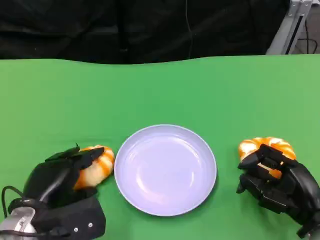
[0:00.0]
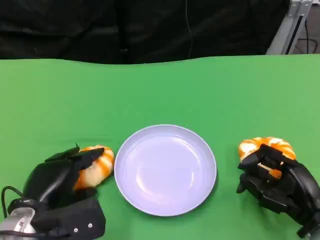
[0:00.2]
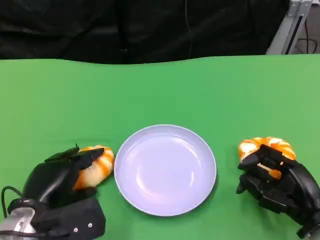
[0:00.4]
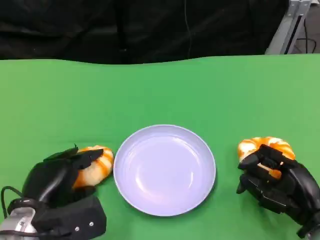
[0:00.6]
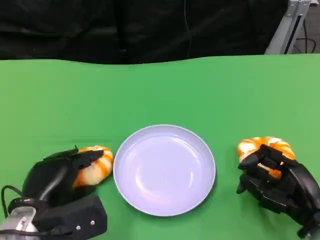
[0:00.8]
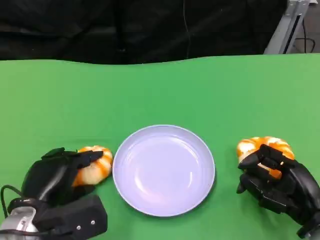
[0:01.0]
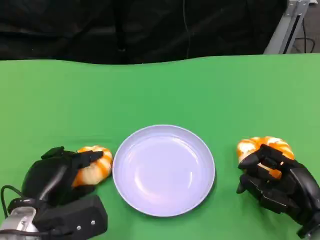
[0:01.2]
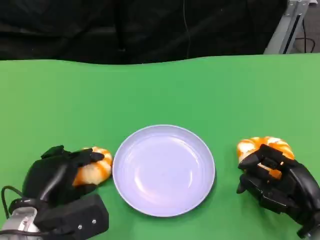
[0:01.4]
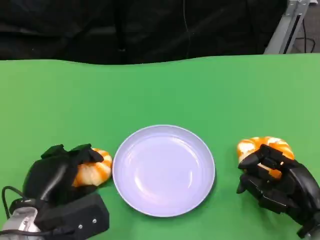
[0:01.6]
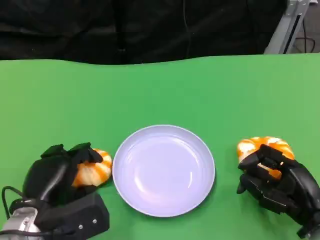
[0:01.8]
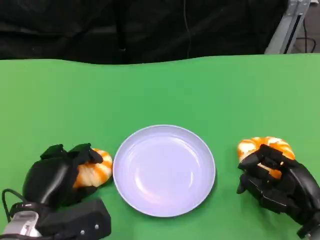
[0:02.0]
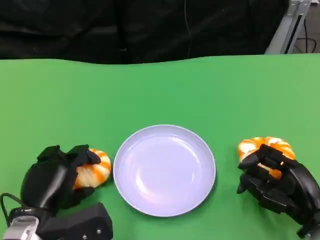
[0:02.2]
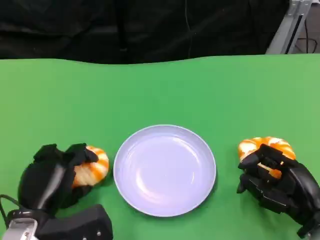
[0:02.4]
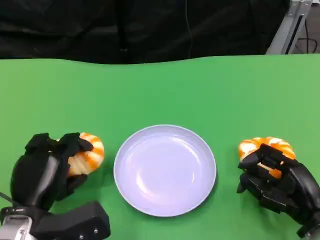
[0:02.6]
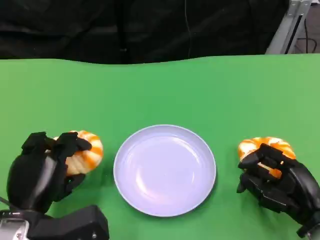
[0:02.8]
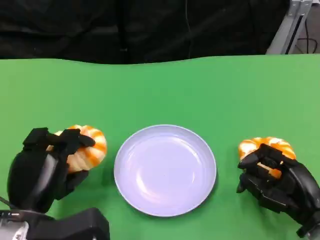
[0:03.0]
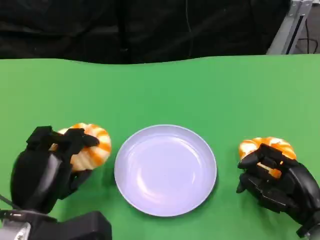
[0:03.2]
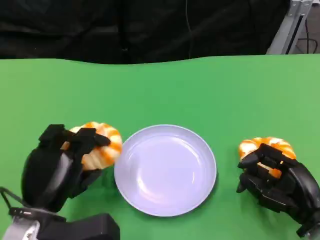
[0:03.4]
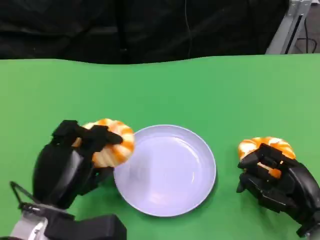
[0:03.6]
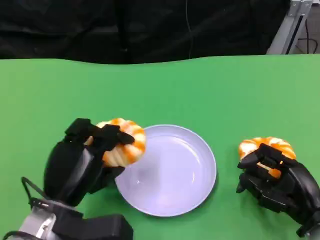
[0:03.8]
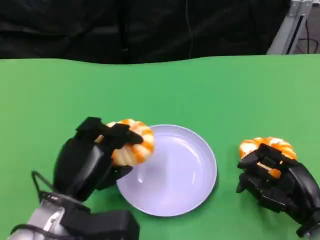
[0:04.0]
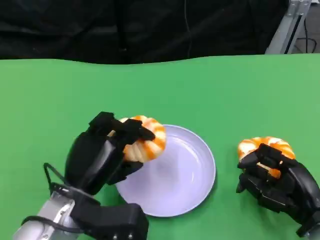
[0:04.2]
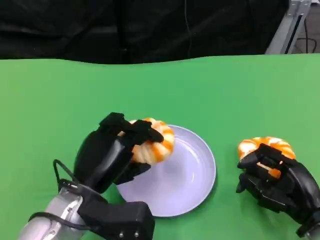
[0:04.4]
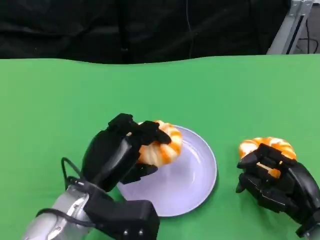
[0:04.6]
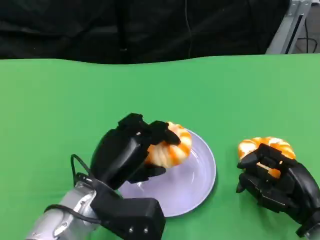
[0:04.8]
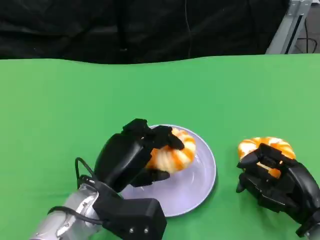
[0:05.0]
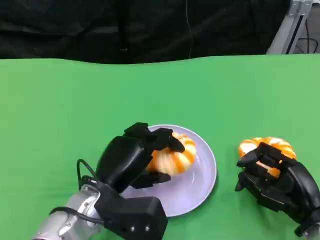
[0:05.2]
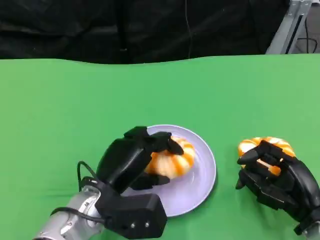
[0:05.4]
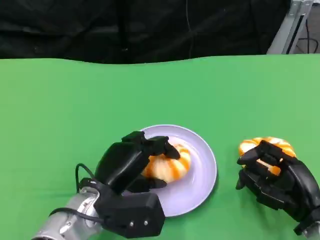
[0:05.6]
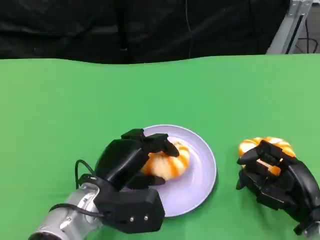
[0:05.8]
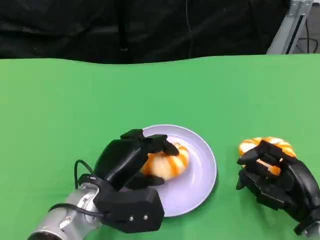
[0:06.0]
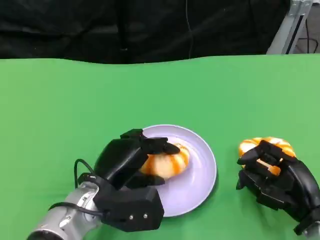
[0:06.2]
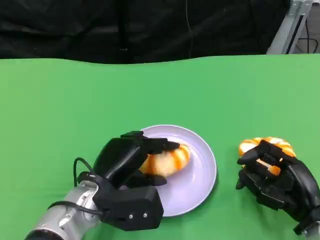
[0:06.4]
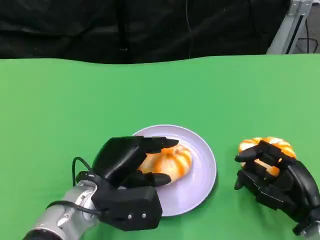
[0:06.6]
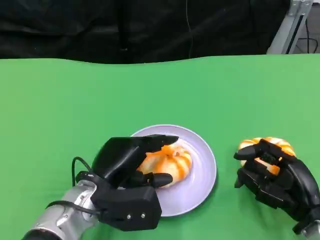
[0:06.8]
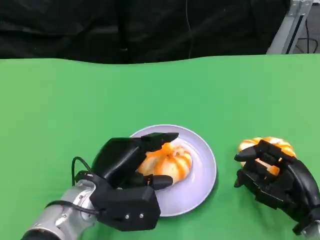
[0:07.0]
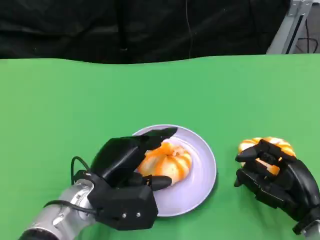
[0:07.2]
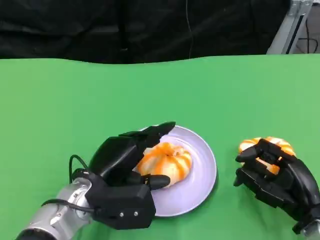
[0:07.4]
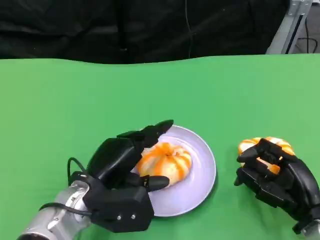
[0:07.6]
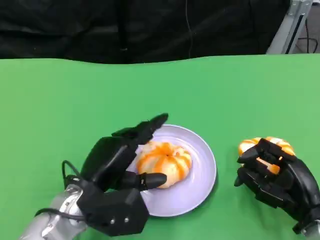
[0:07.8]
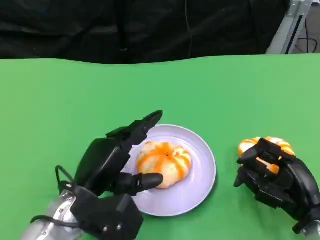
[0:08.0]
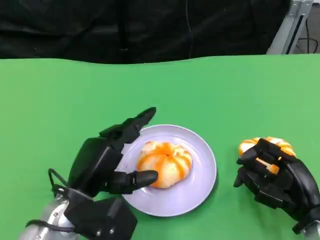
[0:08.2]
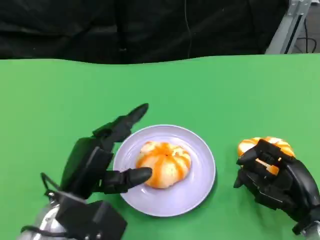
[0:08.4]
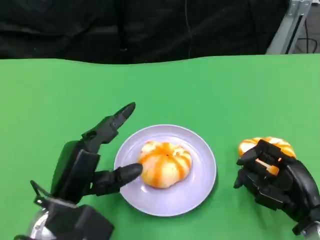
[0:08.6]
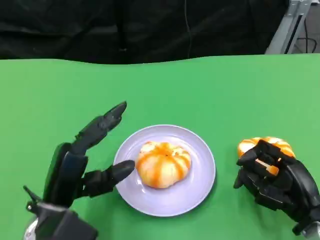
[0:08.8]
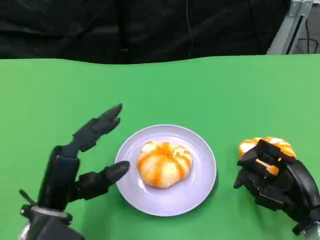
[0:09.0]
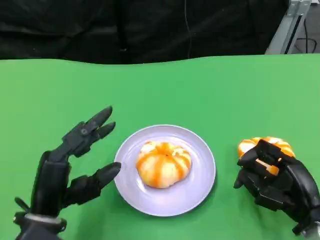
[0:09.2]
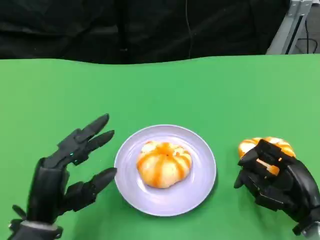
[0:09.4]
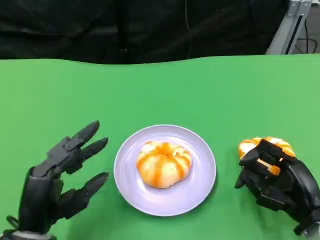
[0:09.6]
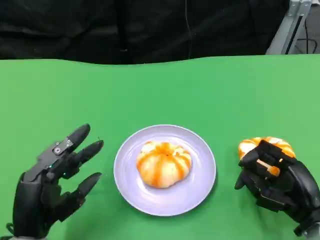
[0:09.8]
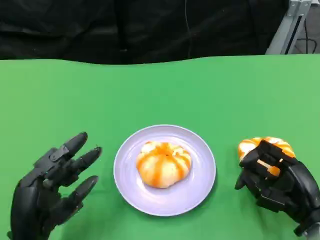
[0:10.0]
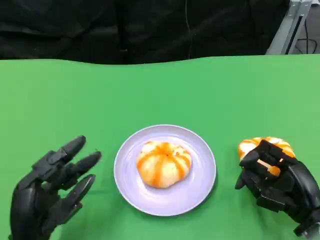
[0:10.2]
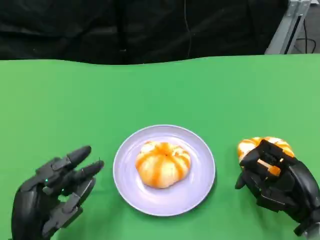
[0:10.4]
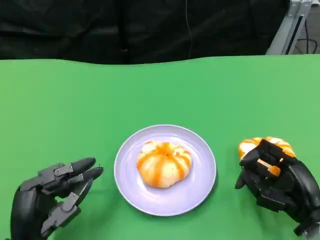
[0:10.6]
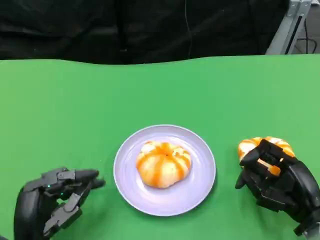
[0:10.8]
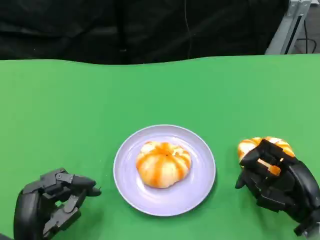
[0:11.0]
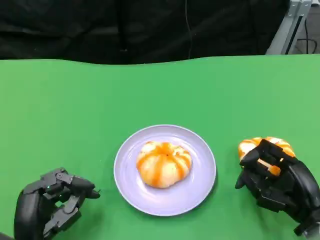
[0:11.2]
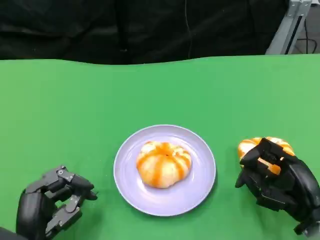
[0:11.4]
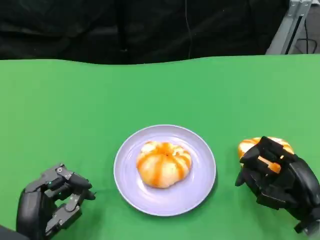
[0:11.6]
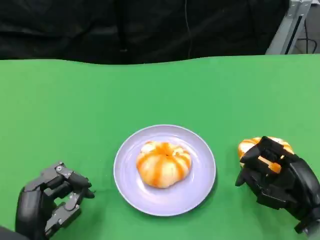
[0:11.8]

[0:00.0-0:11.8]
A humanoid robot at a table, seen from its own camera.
Task of the whole recording: Grasp the bread from the table and place it into the plate.
0:00.0 to 0:01.4: The hands stay close to where they were, moving slightly.
0:03.0 to 0:04.4: The left hand moves to the right, roughly 5 cm.
0:04.4 to 0:06.0: The hands make only small movements.
0:06.0 to 0:07.4: The two hands keep their place.
0:07.4 to 0:08.8: The left hand moves approximately 5 cm.
0:08.8 to 0:10.4: The left hand shifts by roughly 5 cm.
0:10.4 to 0:11.8: There are only small adjustments of the hands.

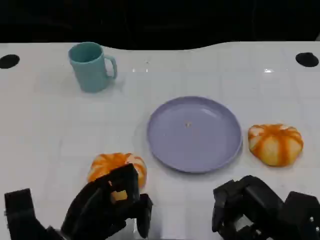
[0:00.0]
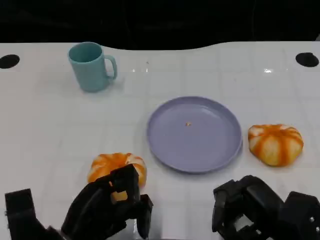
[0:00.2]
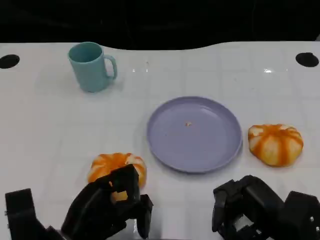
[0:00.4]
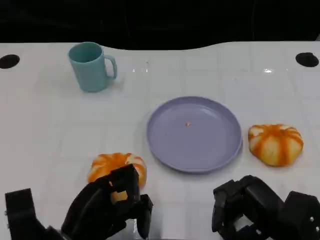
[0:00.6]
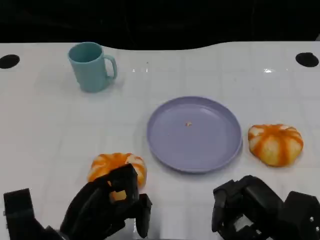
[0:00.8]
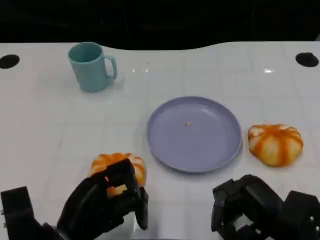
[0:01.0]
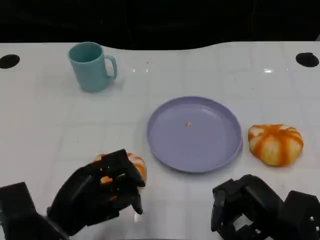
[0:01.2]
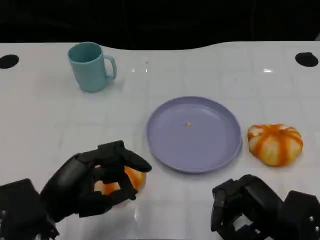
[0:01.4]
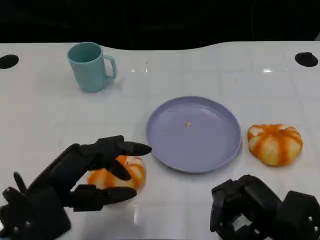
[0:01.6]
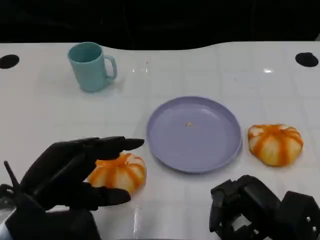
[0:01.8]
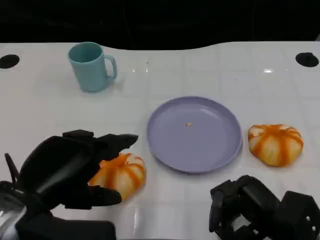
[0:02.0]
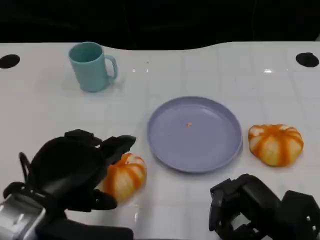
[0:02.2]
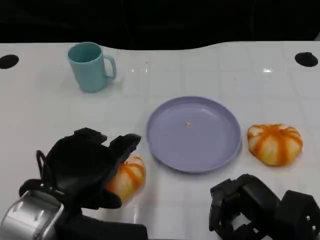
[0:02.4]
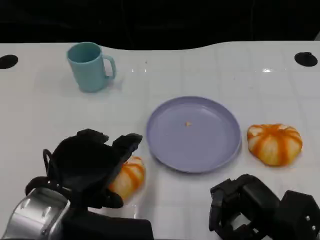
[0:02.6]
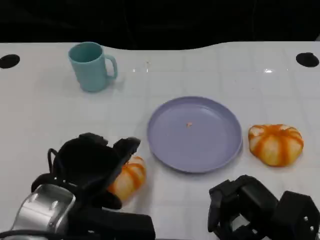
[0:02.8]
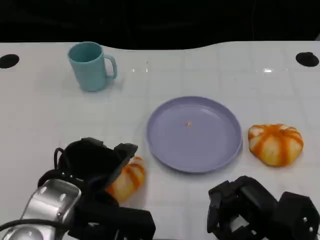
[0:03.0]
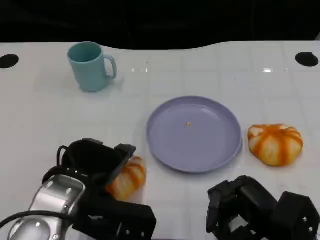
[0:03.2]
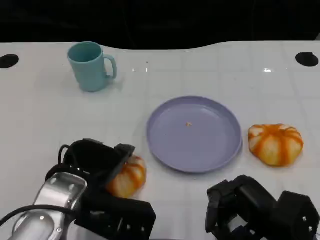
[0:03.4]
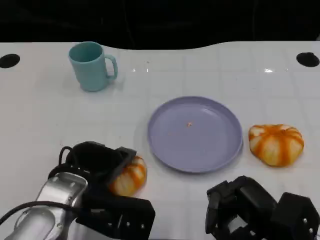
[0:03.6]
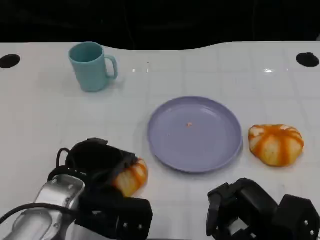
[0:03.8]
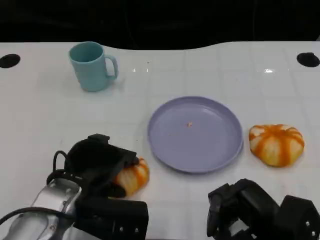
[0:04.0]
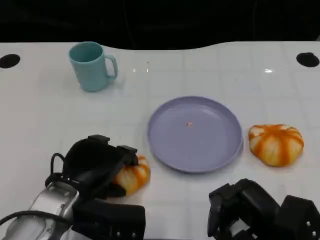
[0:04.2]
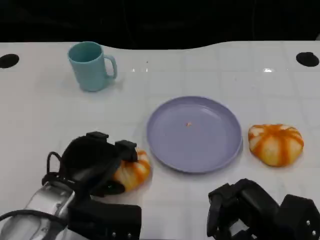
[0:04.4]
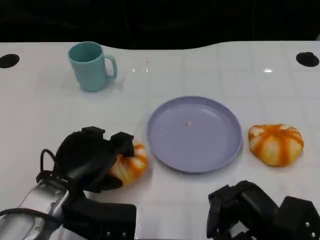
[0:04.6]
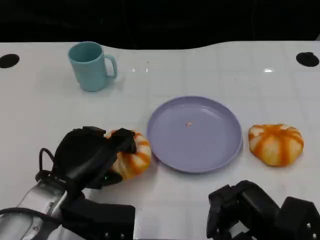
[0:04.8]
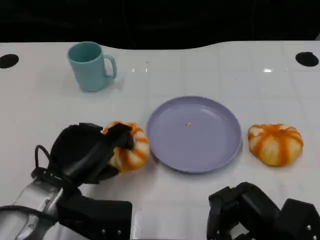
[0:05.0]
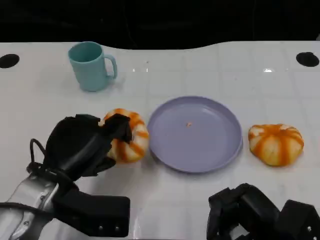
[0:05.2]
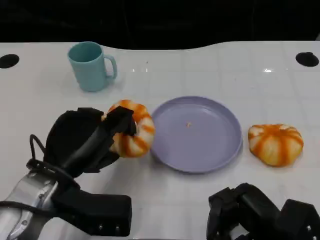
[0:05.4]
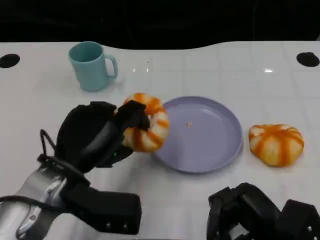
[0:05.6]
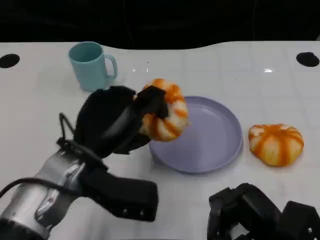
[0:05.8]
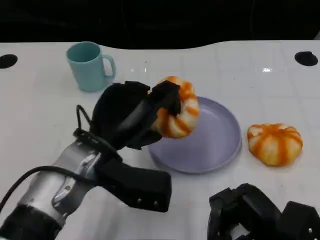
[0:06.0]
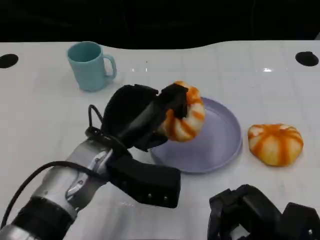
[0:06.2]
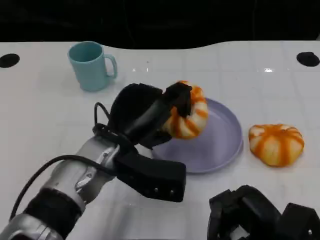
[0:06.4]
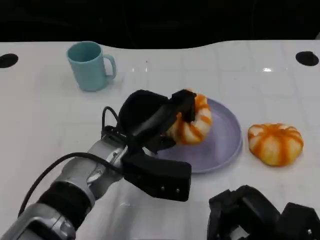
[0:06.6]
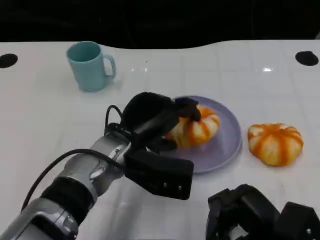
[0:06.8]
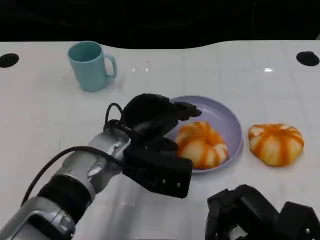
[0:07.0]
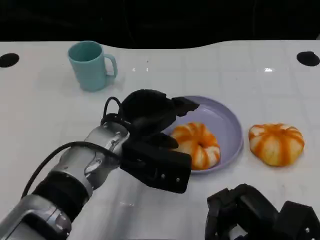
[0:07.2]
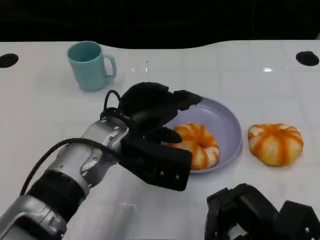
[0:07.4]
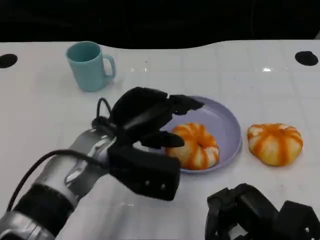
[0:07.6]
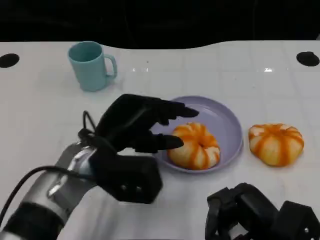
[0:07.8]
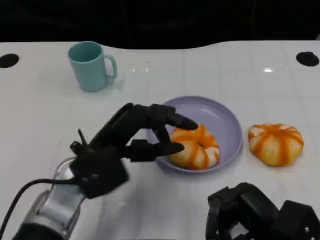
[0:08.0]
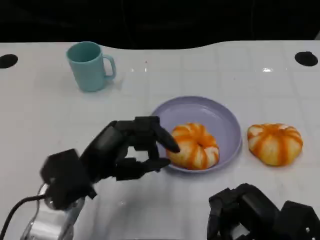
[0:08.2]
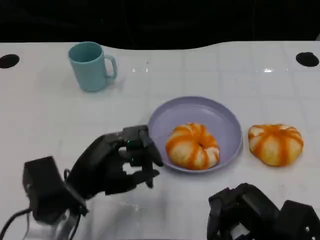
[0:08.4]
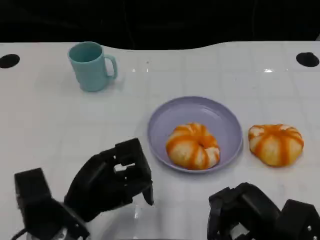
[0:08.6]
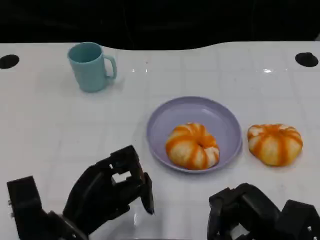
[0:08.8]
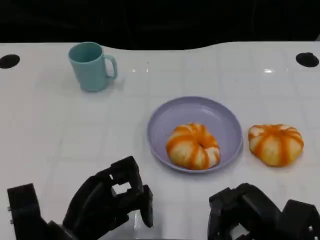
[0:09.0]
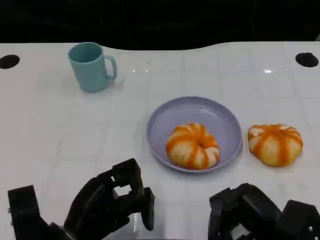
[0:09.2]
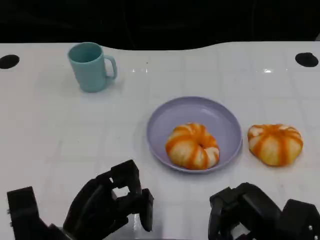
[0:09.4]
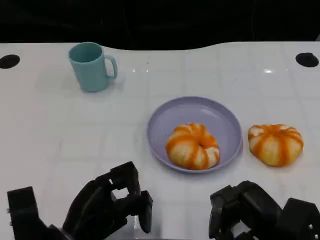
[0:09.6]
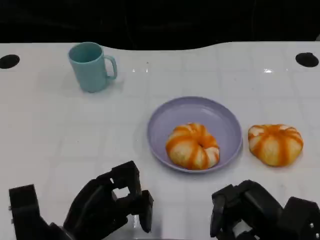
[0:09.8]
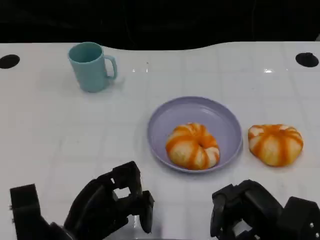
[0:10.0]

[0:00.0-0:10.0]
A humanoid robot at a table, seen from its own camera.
Task of the whole recording: Grasp the bread from the table and place it into the plate.
0:00.0 to 0:01.4: The left hand heads upward, covering approximately 5 cm.
0:01.4 to 0:02.8: The left hand ends up some 5 cm from where it was.
0:02.8 to 0:04.2: The left hand shifts some 5 cm downward.
0:04.2 to 0:05.8: The left hand shifts some 5 cm upward.
0:05.8 to 0:07.2: The left hand is displaced to the right by approximately 5 cm.
0:07.2 to 0:08.6: The left hand moves backward, to the left and downward, approximately 15 cm.
0:08.6 to 0:10.0: The hands move only a little.
